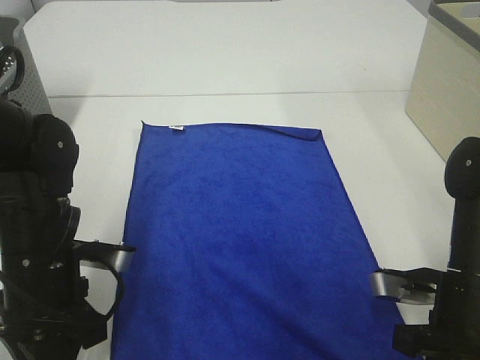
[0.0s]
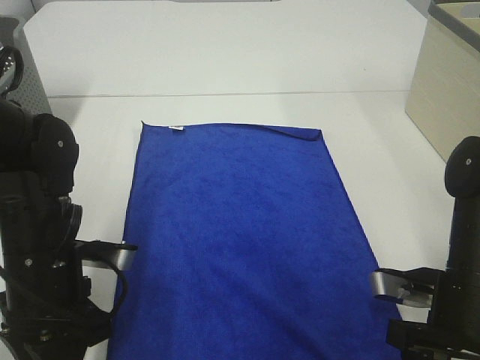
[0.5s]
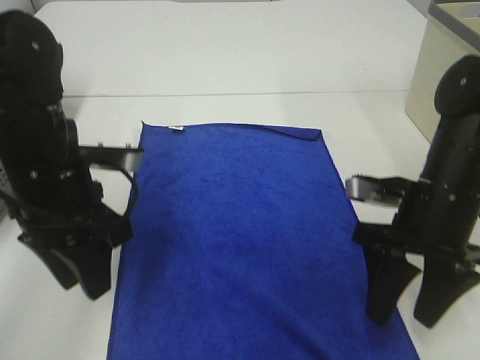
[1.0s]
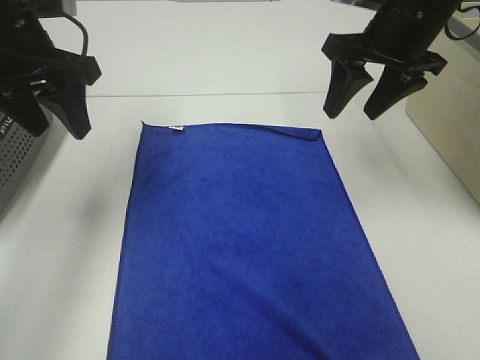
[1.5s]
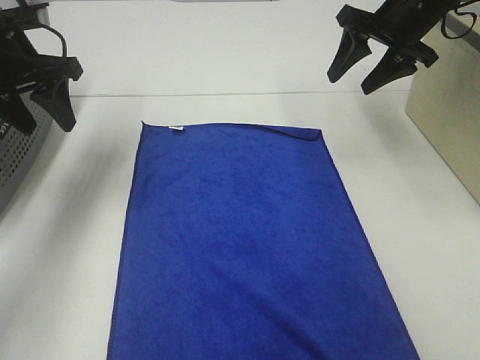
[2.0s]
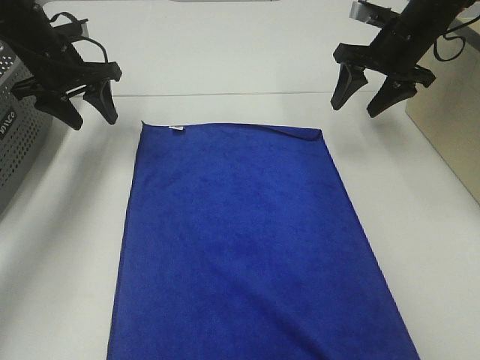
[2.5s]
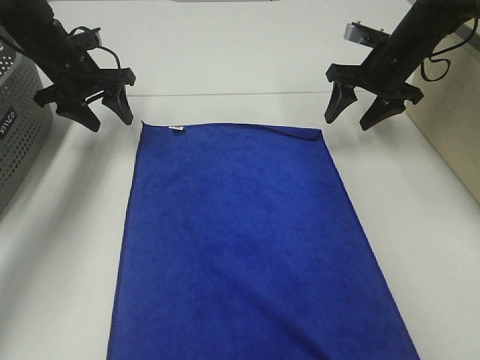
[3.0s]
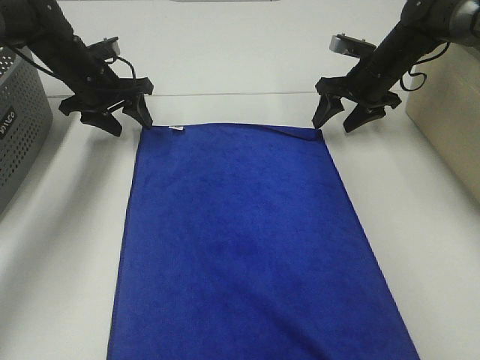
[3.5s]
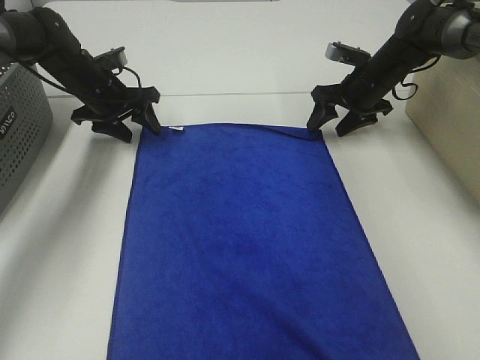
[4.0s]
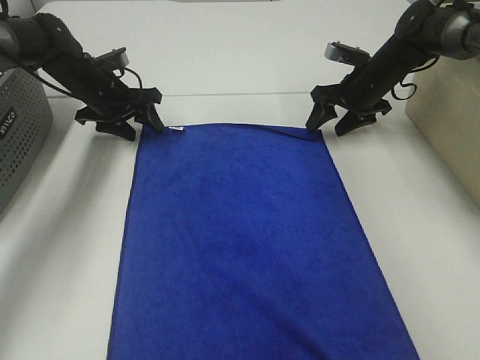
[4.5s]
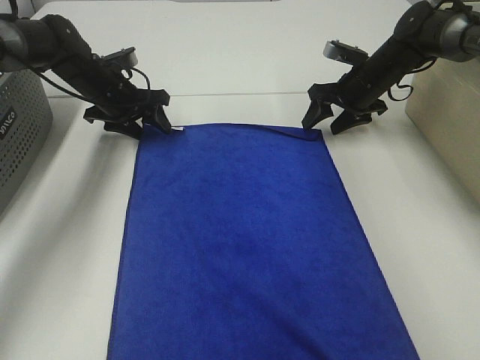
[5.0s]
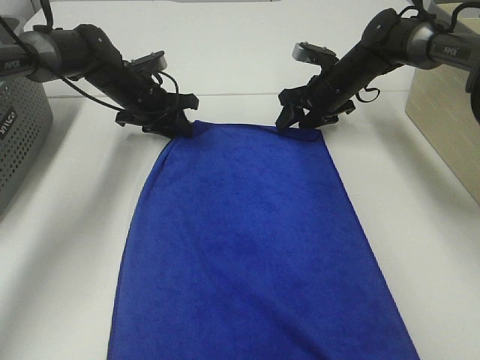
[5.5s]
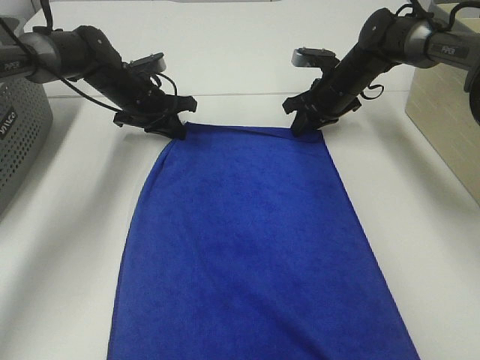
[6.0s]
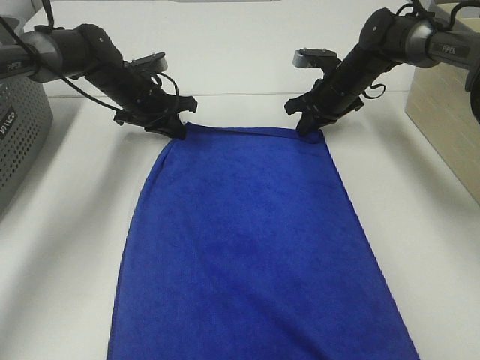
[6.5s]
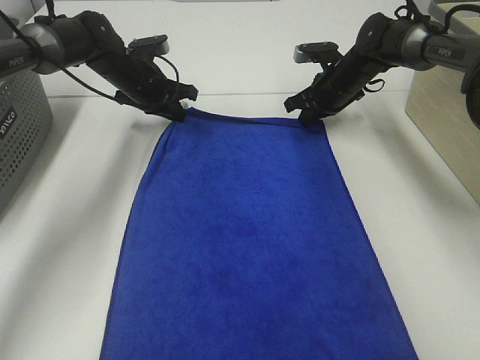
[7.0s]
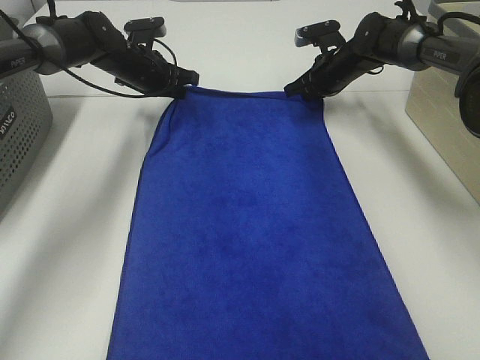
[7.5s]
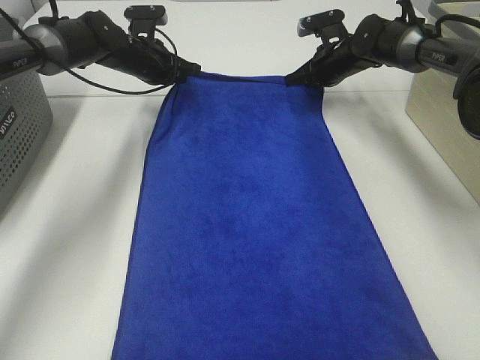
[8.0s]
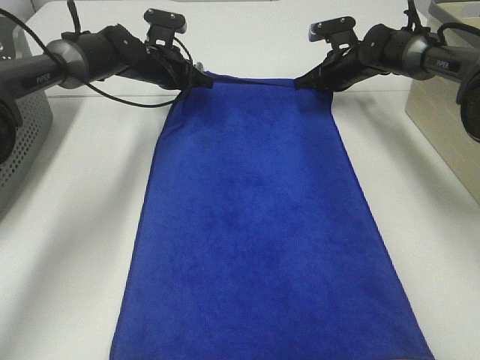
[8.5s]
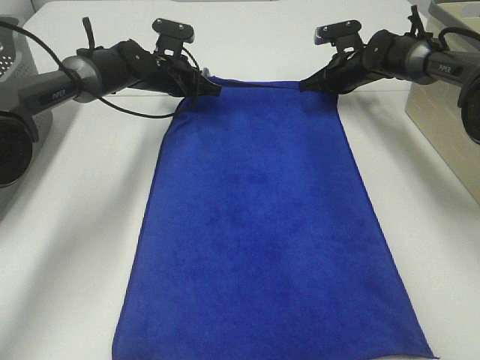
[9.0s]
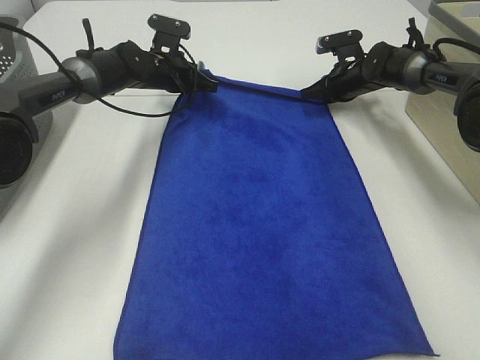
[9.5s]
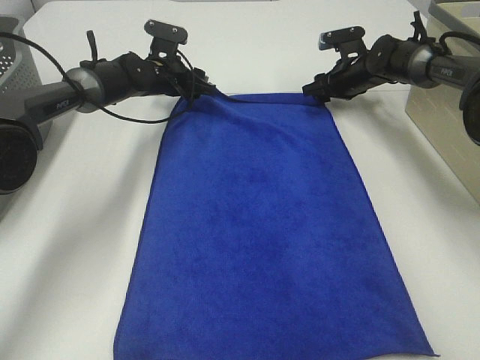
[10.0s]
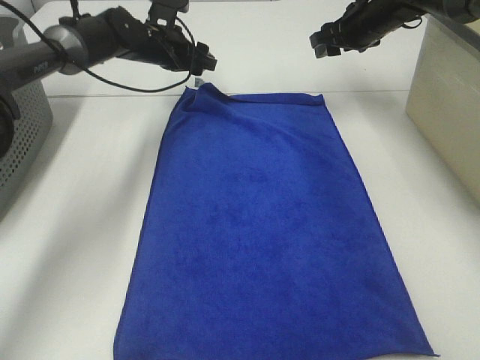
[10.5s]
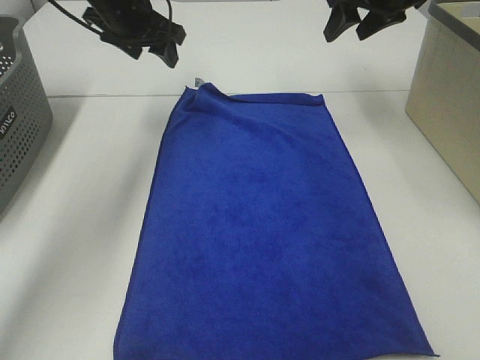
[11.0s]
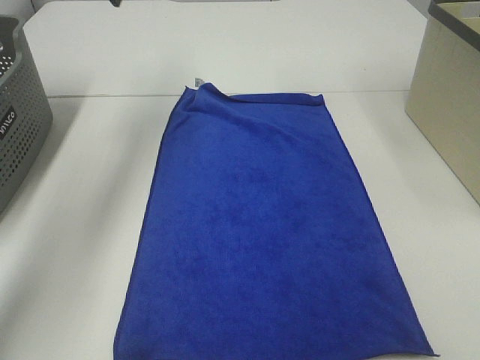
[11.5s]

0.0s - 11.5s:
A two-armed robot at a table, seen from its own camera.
Task of the whole recording: Remove the towel and place it.
Step, 0.0s - 3.5s: Left hand:adjust the blue towel.
Step, 0.0s - 3.5s: Right hand:adjust the blue towel.
0.0s - 2.0s: The right gripper goes roughly 30 cm forward and upward, and opens its fingers; the left gripper heads forward, upward and to the left, covering roughly 25 cm.
2.0s - 4.0s: The grippers both shift downward and forward by roughly 15 cm.
4.0s - 6.0s: The right gripper shifts by some 5 cm, and closes up. The left gripper heads to the right, covering some 5 cm, and closes up.
7.5s - 9.5s: The right gripper changes place by roughly 5 cm.
9.5s - 11.5s: The right gripper moves upward and backward, approximately 35 cm, and opens up. The left gripper travels upward by some 25 cm, and opens its fingers.

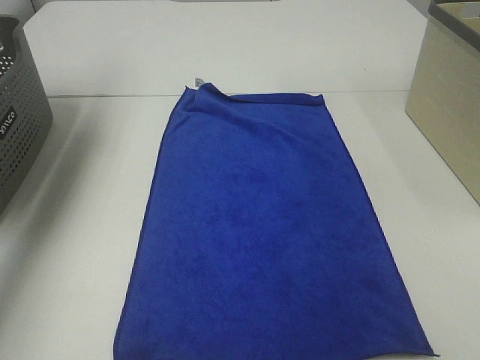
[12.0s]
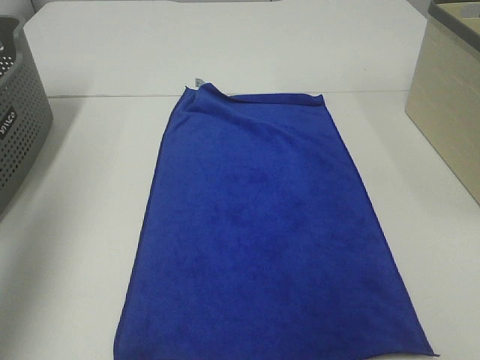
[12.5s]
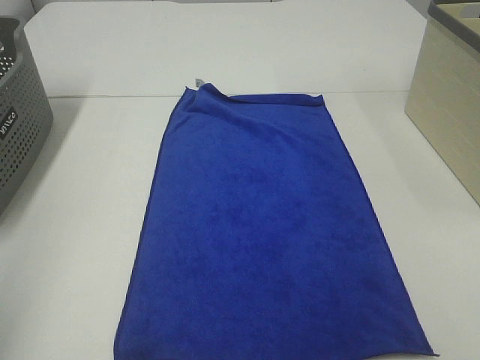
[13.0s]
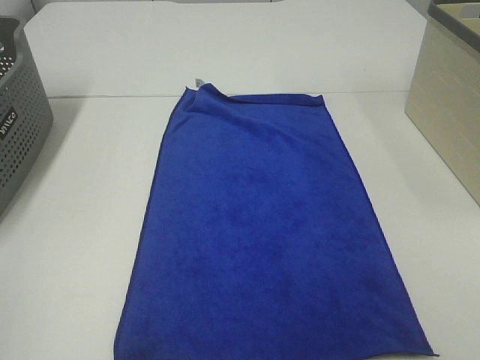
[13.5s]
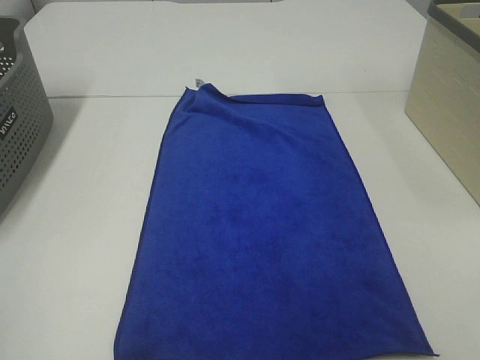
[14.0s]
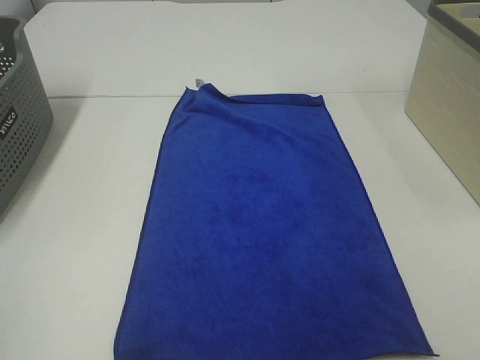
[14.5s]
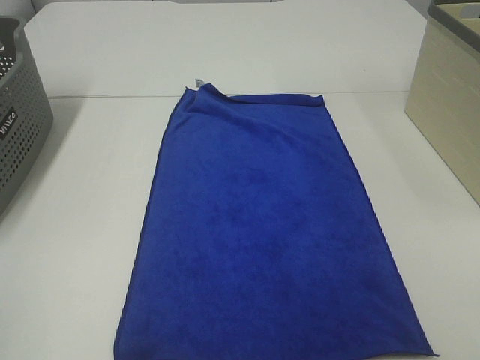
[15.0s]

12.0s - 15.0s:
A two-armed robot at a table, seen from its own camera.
Task of the whole recording: Remove the towel and place it.
12.0s - 13.5s: The left gripper shifts approximately 40 cm backward.

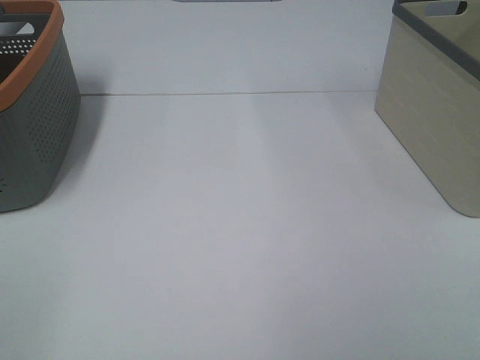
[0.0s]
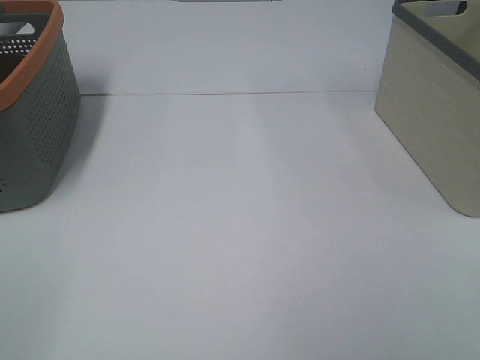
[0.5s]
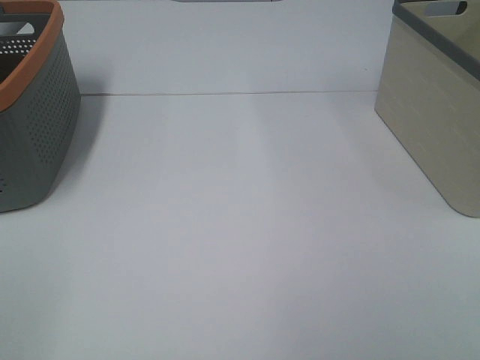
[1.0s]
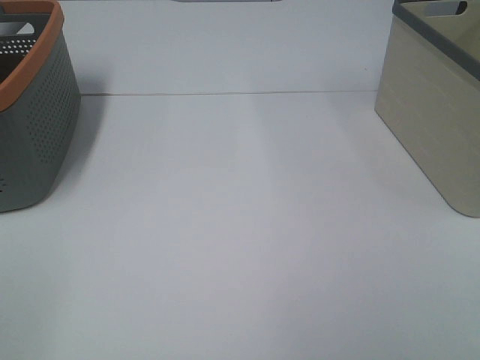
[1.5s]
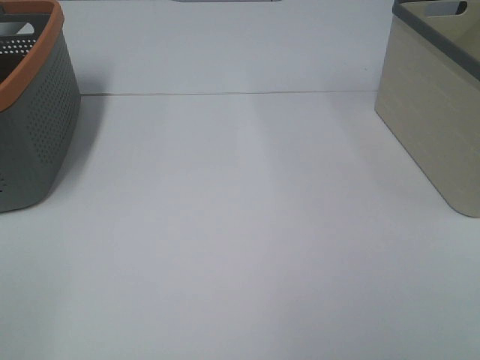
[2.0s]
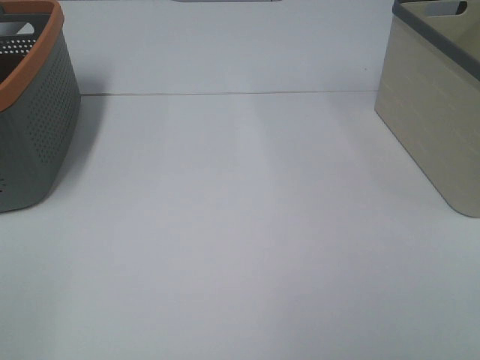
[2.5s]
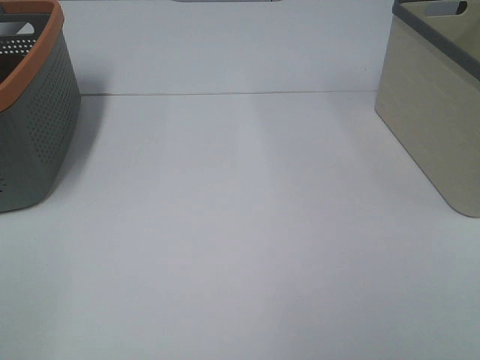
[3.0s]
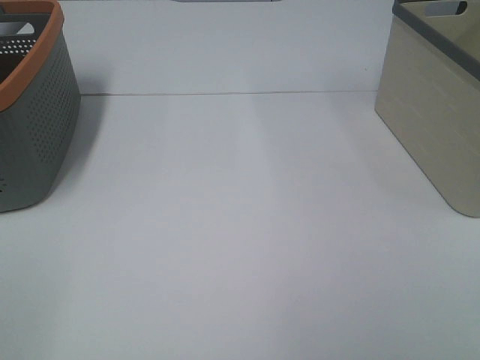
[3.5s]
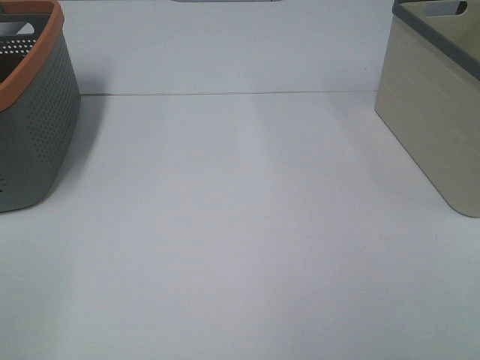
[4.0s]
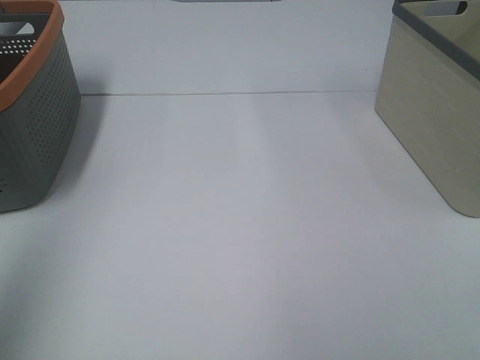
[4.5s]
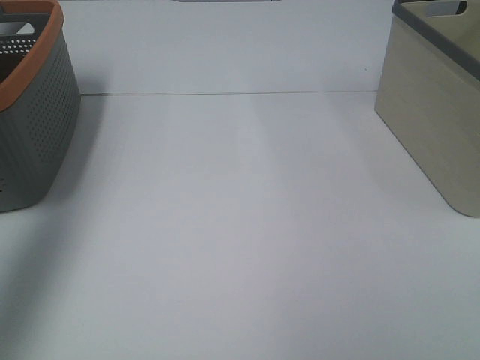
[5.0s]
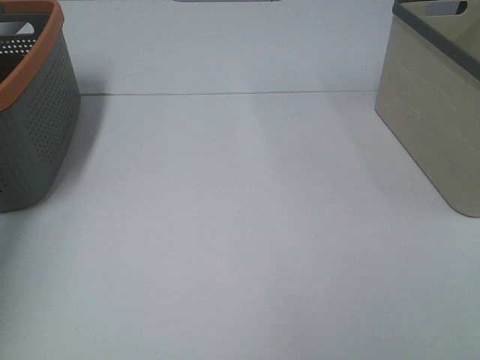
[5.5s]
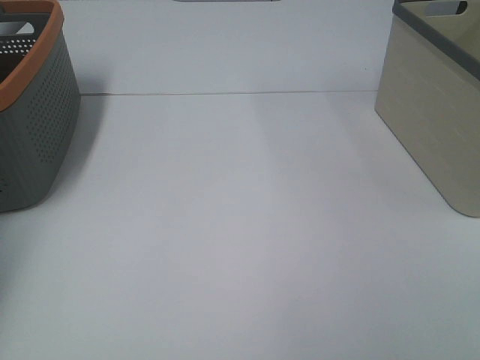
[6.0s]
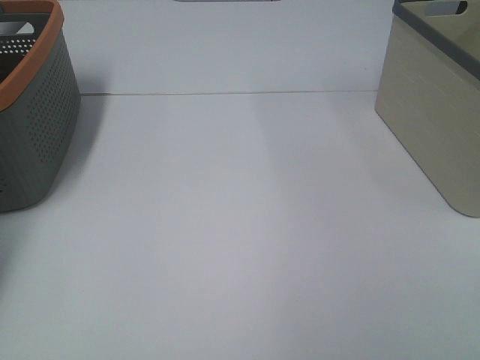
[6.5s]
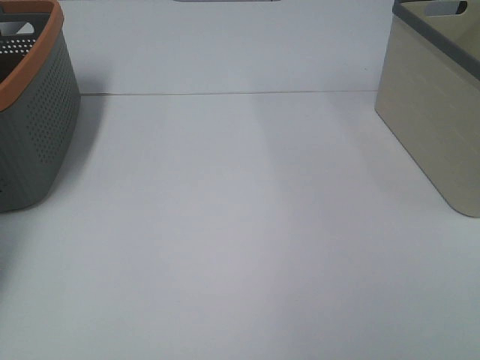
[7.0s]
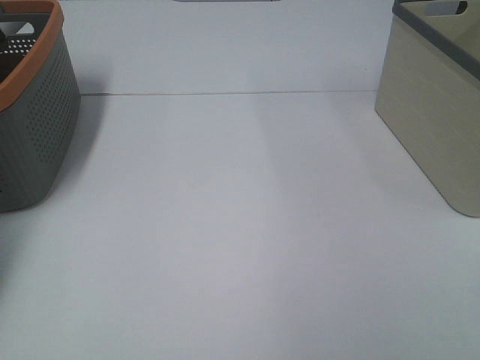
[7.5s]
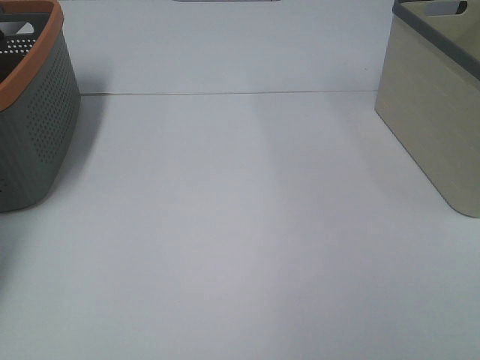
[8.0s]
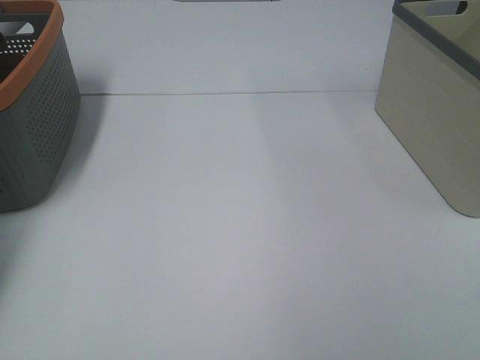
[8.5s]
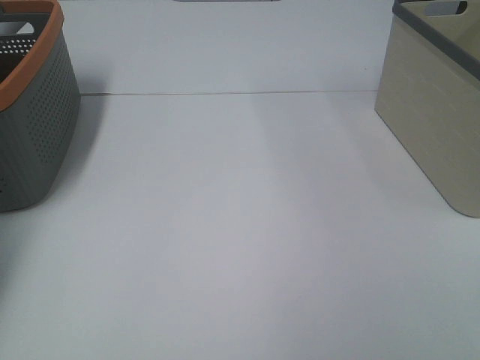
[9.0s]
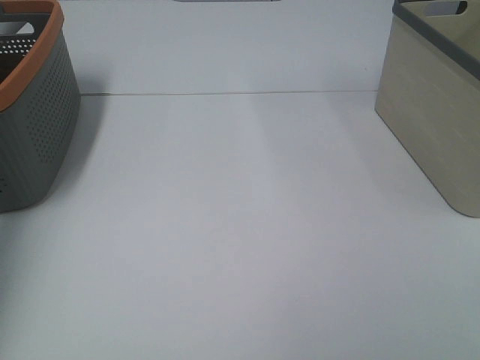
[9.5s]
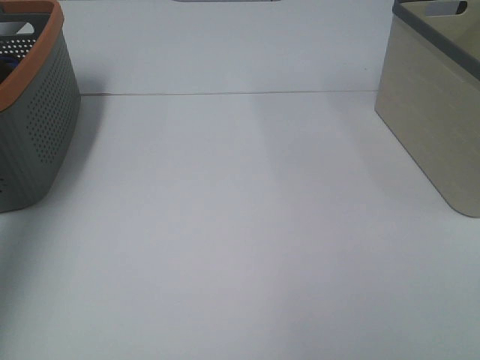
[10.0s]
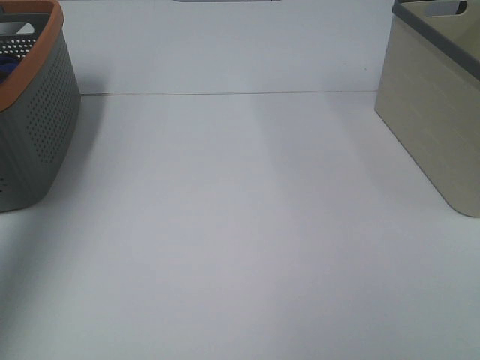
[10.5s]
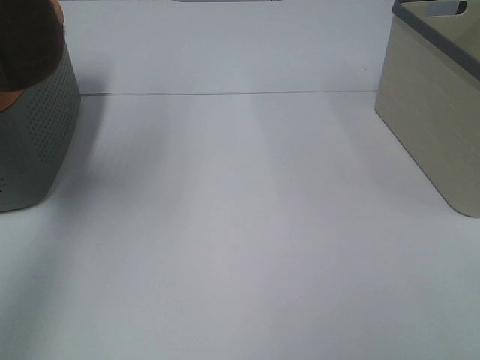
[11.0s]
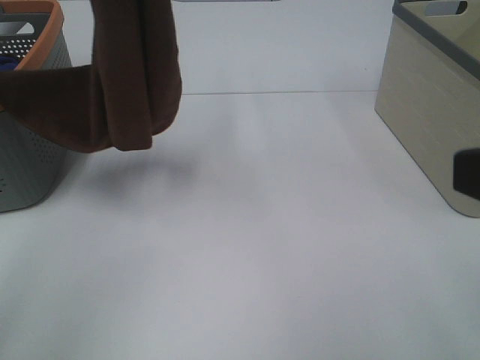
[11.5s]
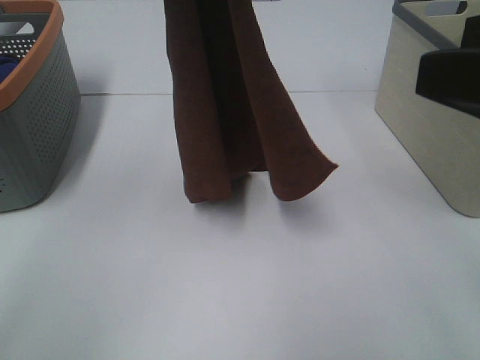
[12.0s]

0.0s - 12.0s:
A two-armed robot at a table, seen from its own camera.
Task of the whole recording: Remove the towel and place it.
0.0s - 2.0s: The two grippers keep their place.
4.0s - 6.0s: The left gripper travels forward by about 50 cm.
8.0s - 10.0s: The left gripper shifts some 35 cm upward and backward, and closes.
10.0s - 12.0s: The right gripper is displaced forward by about 15 cm. The left gripper is displaced to the right by some 30 cm.
